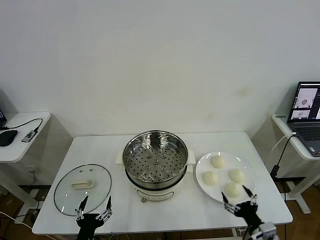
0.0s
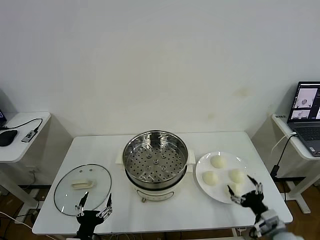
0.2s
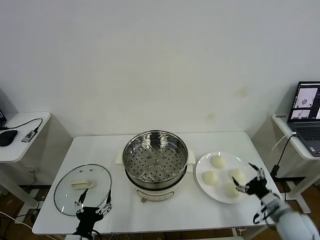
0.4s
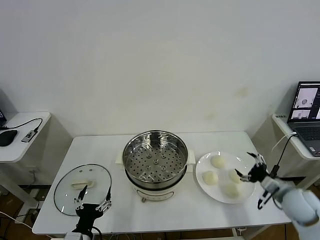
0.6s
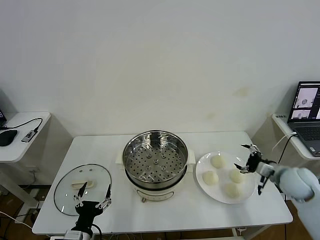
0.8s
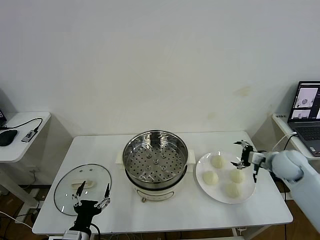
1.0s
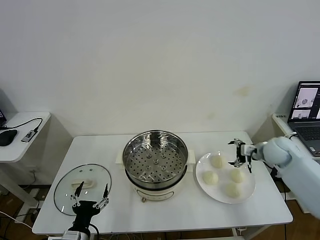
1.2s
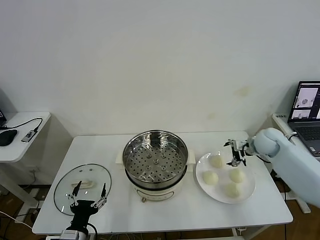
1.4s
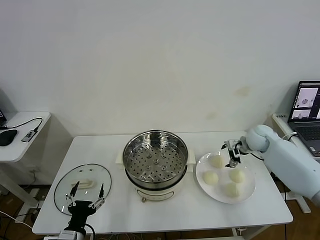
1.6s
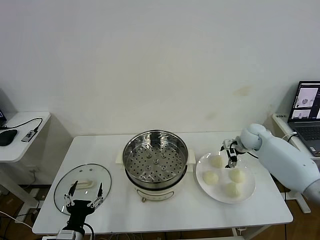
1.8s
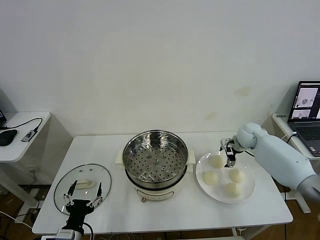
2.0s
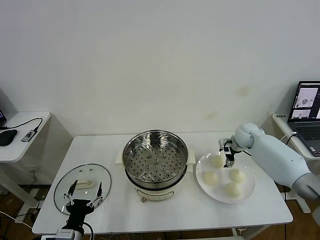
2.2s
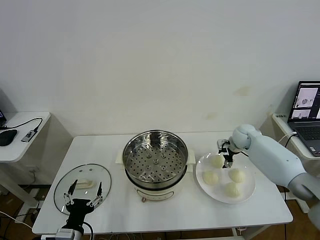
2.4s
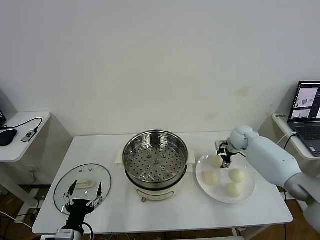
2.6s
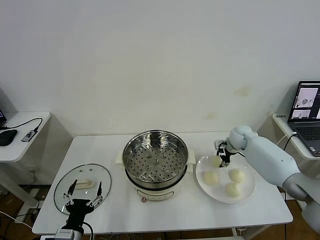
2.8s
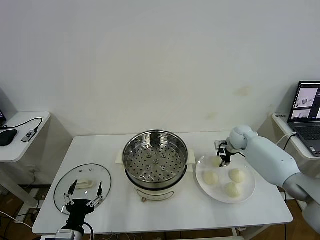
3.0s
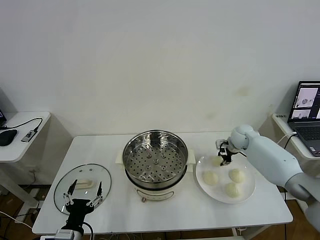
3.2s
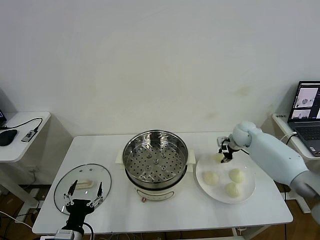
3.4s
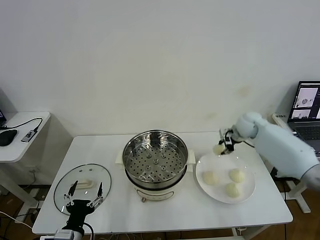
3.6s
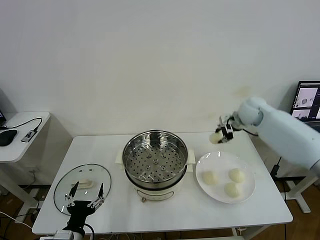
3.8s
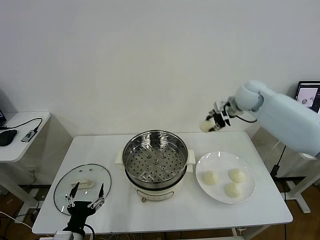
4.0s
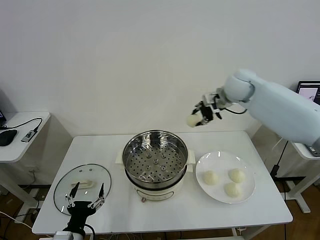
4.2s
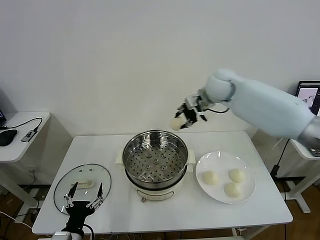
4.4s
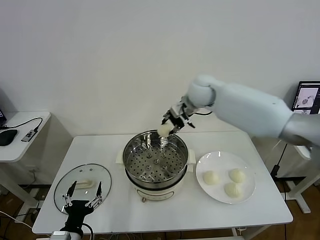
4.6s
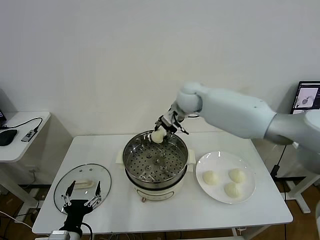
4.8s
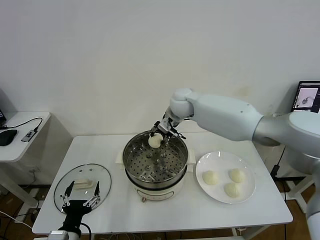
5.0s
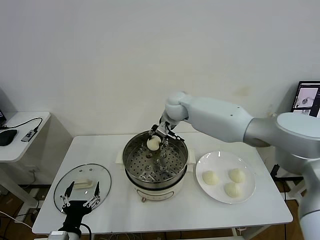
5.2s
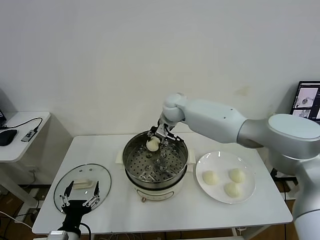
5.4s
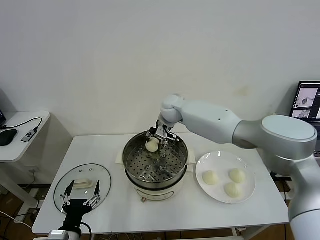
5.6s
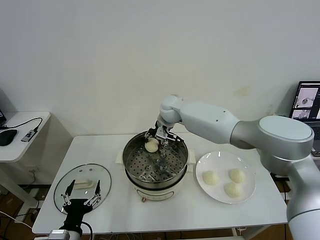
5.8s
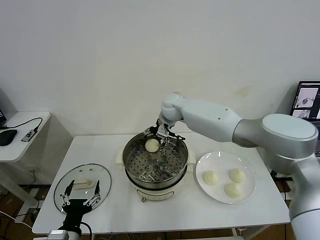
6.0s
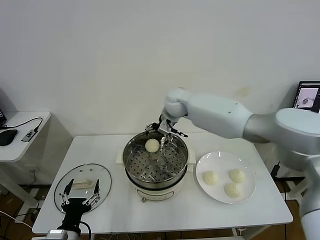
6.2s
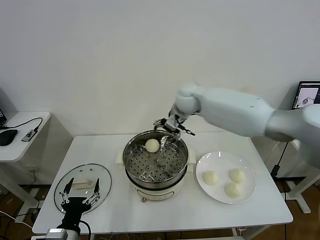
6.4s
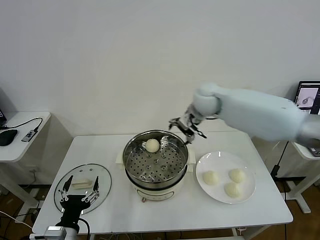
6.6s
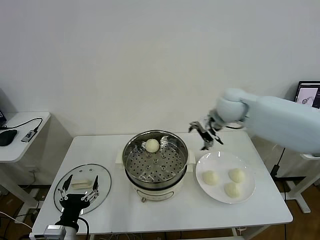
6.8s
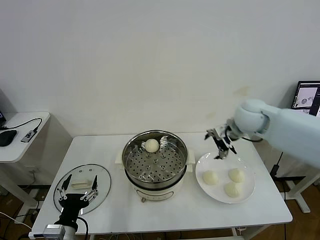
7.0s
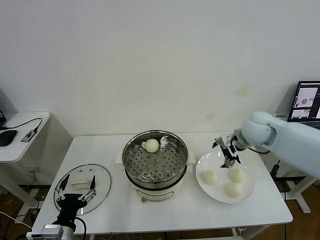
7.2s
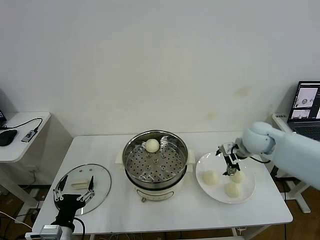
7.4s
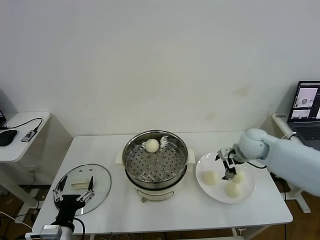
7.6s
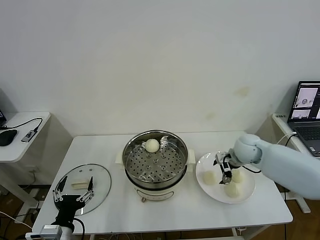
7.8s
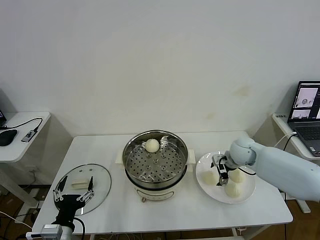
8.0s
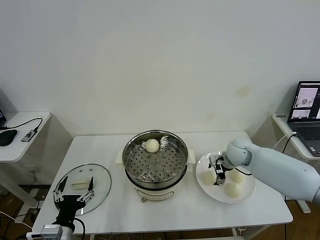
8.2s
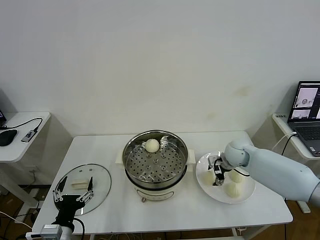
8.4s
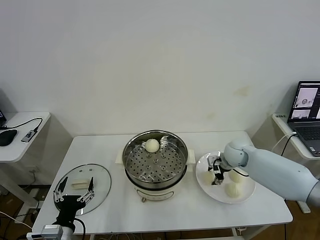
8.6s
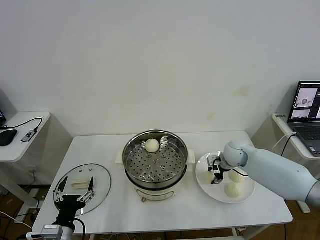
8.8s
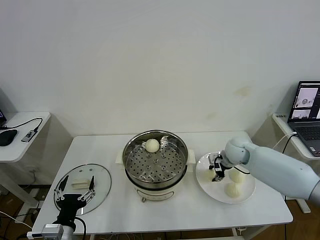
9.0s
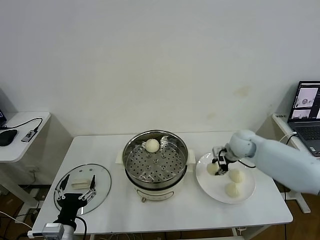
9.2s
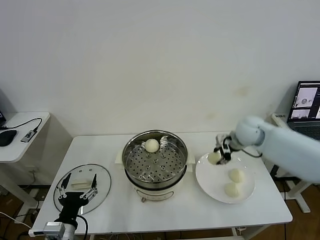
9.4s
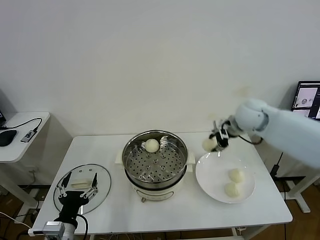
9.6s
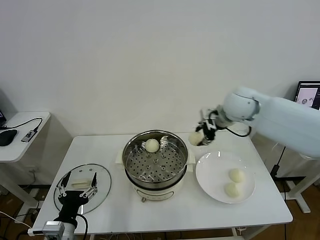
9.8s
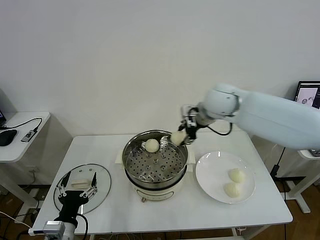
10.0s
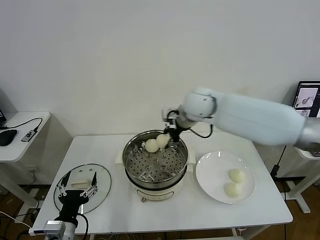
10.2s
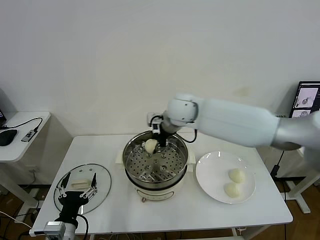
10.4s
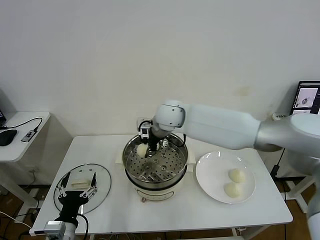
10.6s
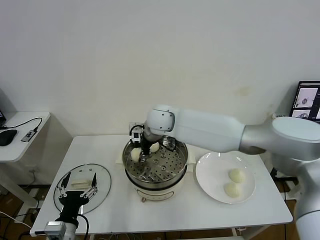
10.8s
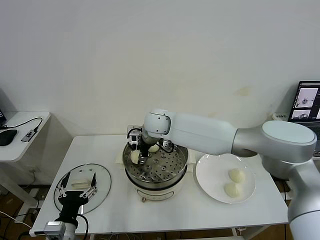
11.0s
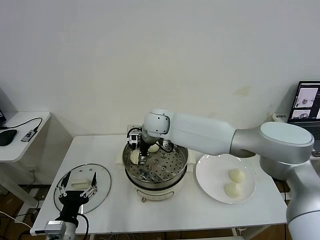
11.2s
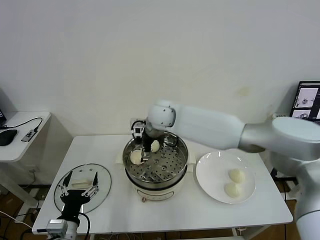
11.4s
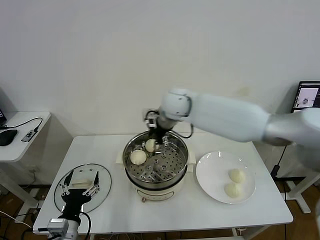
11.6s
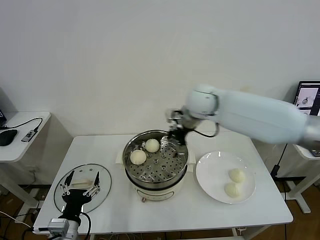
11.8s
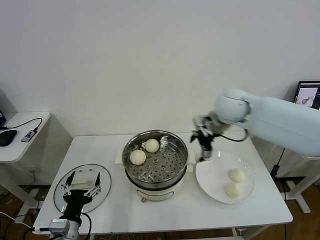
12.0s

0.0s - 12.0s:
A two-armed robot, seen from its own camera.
Task of the whole recording: take steamed baozi put them in steamer then cover it.
Step, 0.0s - 3.0s: Grasp the baozi in the plate with right gripper.
Step, 3.2s - 6.0s: Place the baozi on the steamer with right gripper.
Step, 6.2s - 8.8s: Grasp the baozi in the plate with right gripper.
Step, 9.0s - 11.4s: Place the baozi on the steamer with right gripper.
1.6s - 3.0s: The right gripper changes place by about 5 cm, and closes its fingers.
3.0s - 4.4s: The right gripper is displaced upward and to the left by roughly 30 cm.
4.4s - 6.0s: The right gripper travels to the left and downward by roughly 10 cm, and opens.
6.0s - 7.6s: The right gripper shifts about 30 cm to the right and backward.
7.6s - 9.0s: The right gripper closes.
9.0s - 10.4s: The right gripper travels to the left and upward by some 30 cm.
10.4s - 12.0s: The right gripper moves to the right, roughly 20 cm, and opens its fingers.

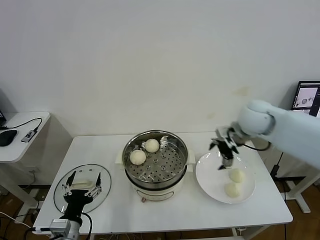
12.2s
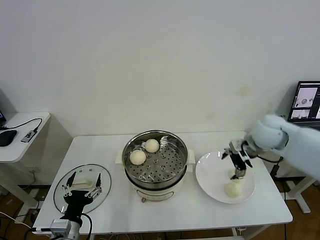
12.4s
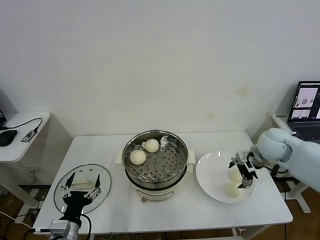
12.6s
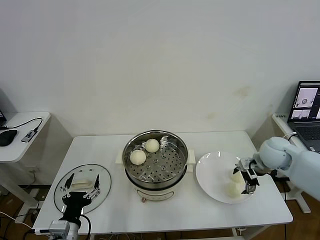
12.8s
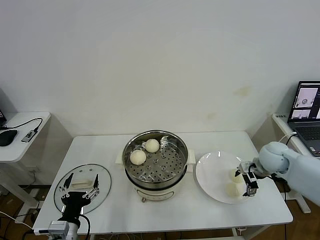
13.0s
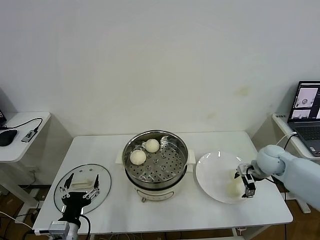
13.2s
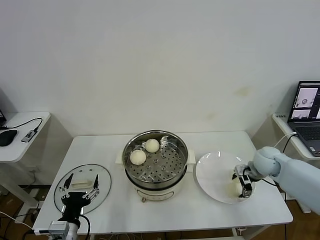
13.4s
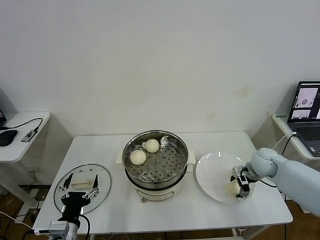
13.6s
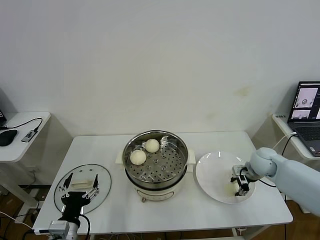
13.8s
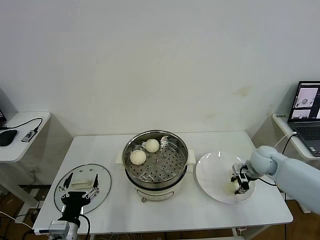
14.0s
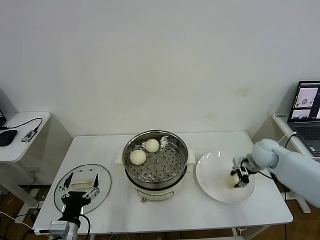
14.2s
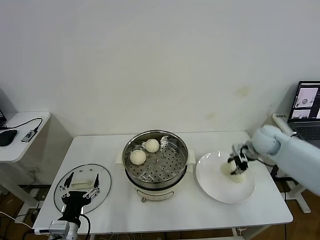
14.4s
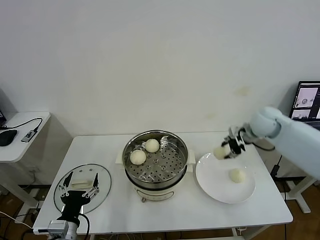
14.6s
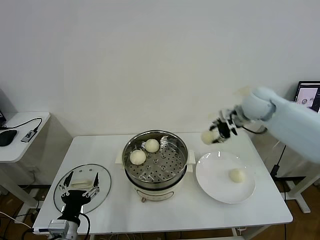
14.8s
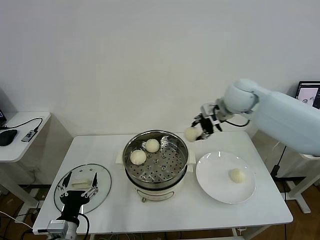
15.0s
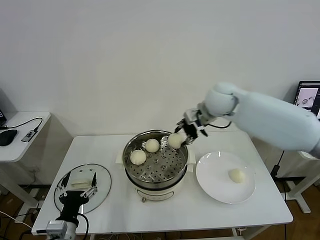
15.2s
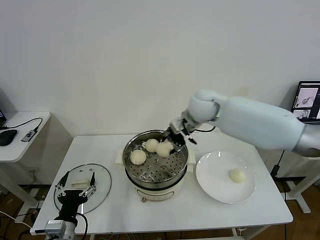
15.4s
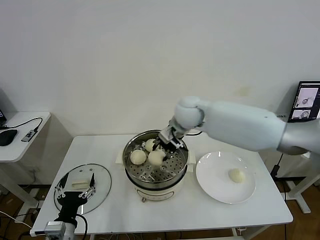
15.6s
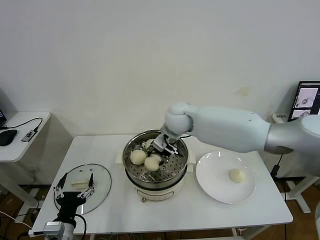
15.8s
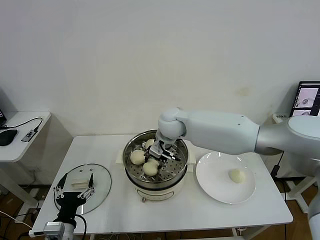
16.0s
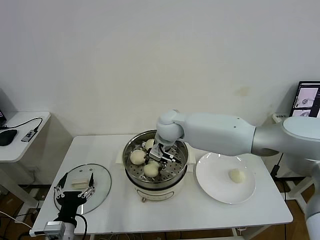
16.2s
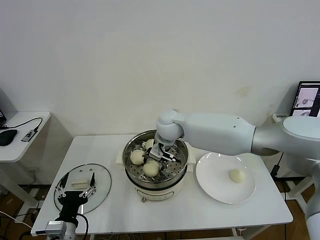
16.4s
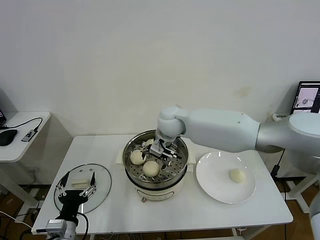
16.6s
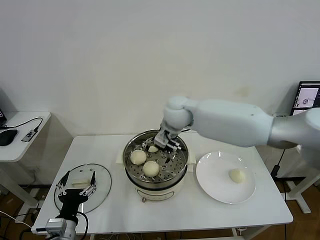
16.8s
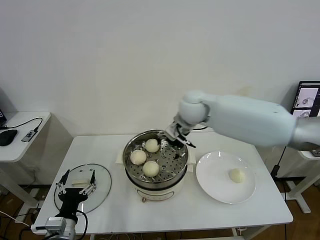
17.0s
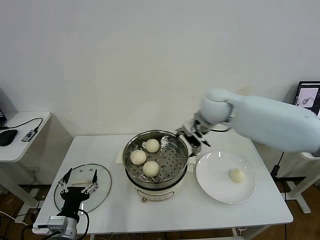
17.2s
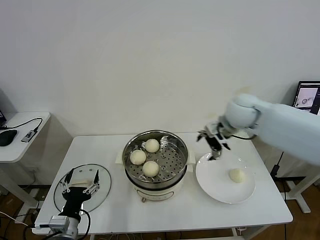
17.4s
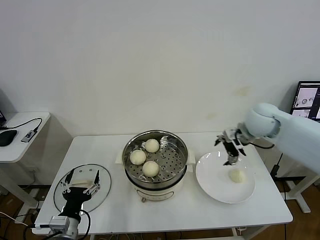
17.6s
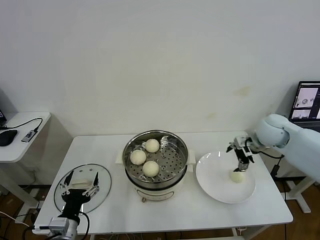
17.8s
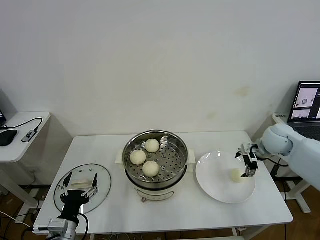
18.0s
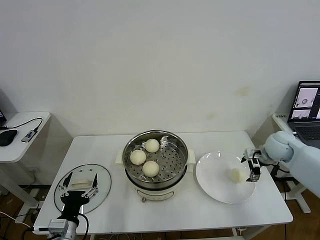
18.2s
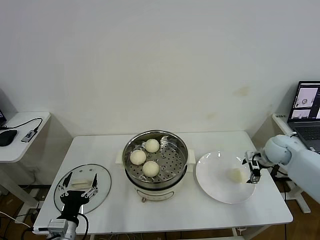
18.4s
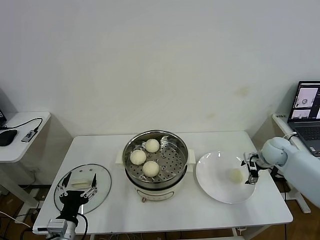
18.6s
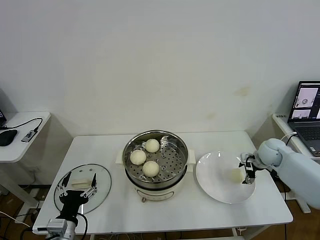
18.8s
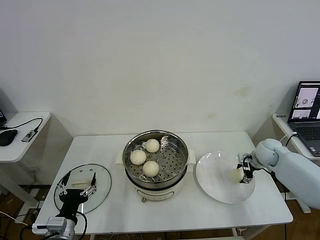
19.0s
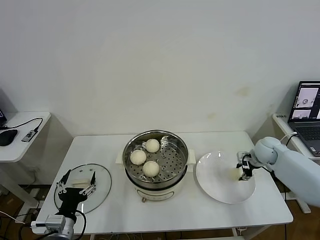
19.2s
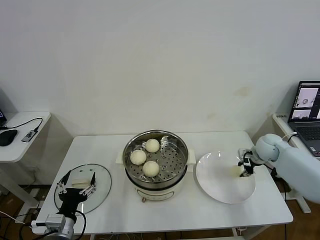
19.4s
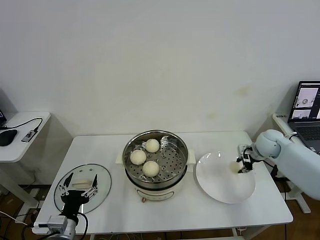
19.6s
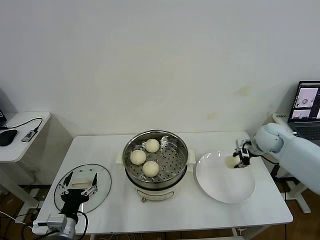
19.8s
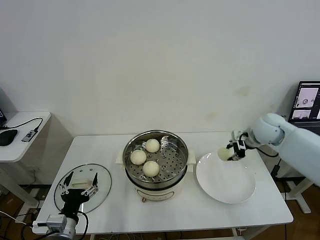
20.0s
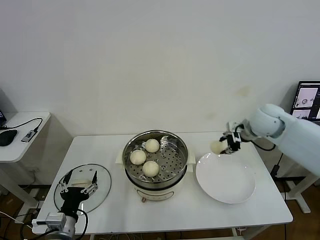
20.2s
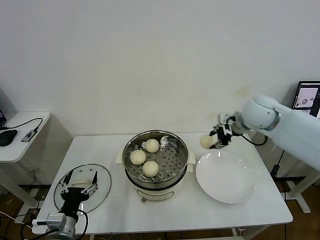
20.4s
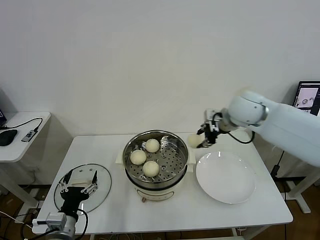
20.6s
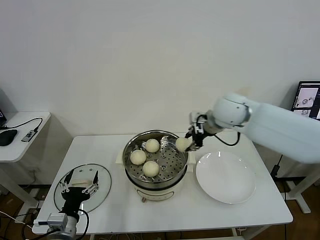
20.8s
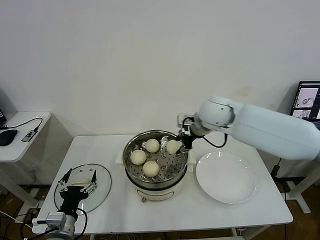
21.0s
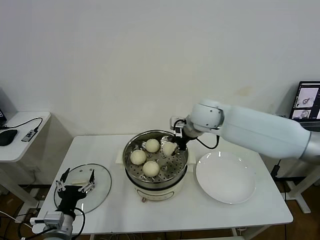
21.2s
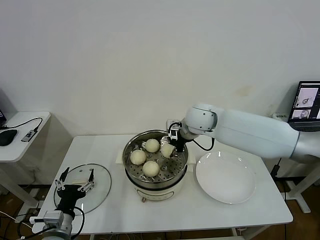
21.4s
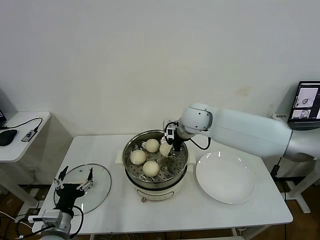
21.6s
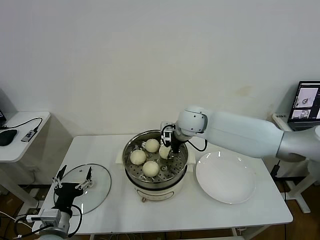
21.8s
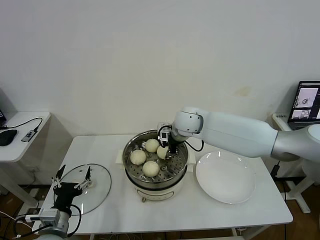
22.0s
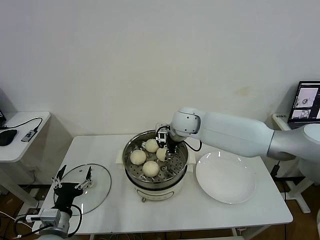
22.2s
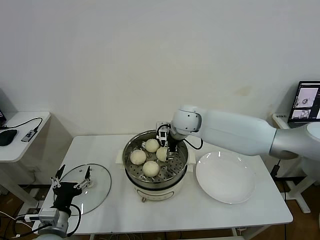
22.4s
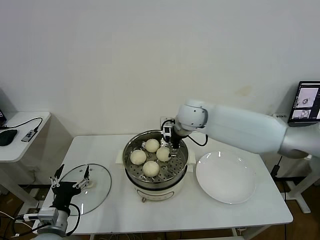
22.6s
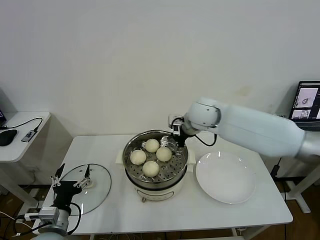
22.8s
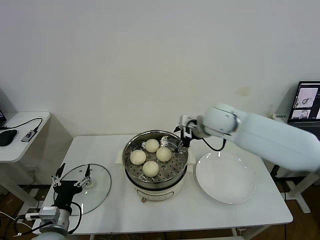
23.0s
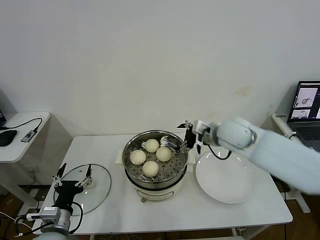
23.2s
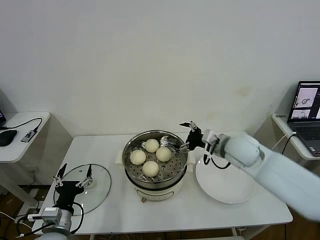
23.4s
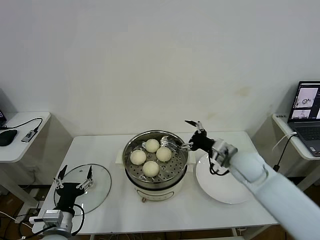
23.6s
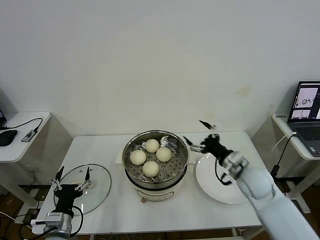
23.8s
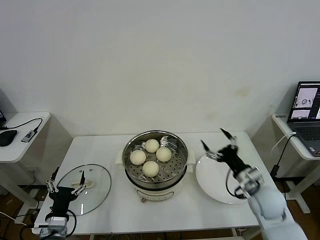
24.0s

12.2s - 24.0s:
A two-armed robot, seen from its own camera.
Task of the whole recording: take steamed baozi put them in steamer then cover it.
Step, 12.2s - 14.0s: Grasp the baozi in the plate with right gripper.
Step, 14.2s - 16.6s: Place the baozi on the steamer with right gripper.
Step, 16.8s - 19.4s: Grasp the baozi in the plate with right gripper.
Step, 19.6s - 22.8s: Place the baozi on the steamer with right gripper.
12.2s - 13.6s: The right gripper shifts roughly 20 cm downward and to the right, and closes its fingers.
13.6s - 15.2s: The right gripper is displaced to the left and upward by some 30 cm, and closes.
15.2s - 16.6s: The right gripper goes approximately 15 cm to the left and downward, and opens up.
16.6s - 18.2s: The right gripper moves to the right, approximately 40 cm.
18.2s - 19.6s: The right gripper closes.
19.6s - 21.0s: The right gripper is displaced to the left and upward by about 30 cm.
21.0s - 22.6s: The right gripper heads to the left, covering roughly 5 cm, and opens up.
22.6s - 24.0s: The right gripper shifts approximately 35 cm to the right, backward and downward.
